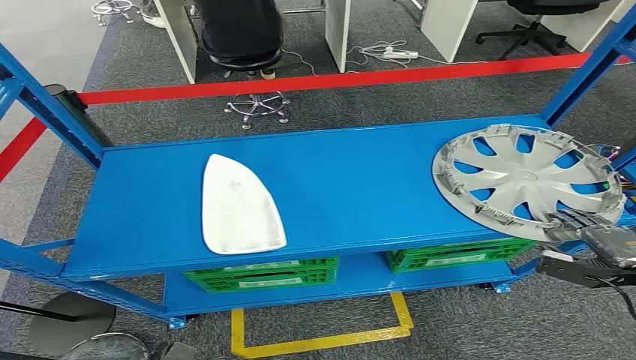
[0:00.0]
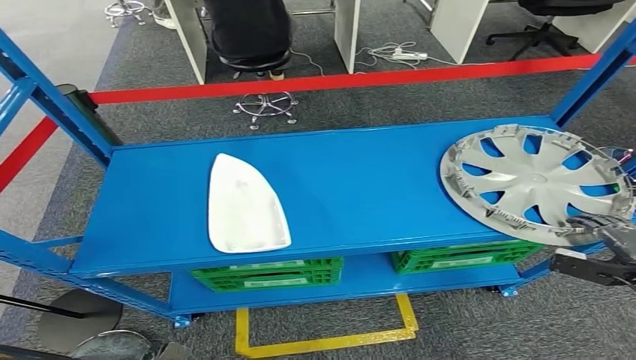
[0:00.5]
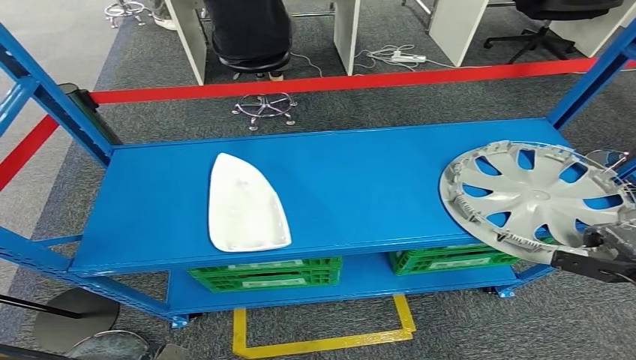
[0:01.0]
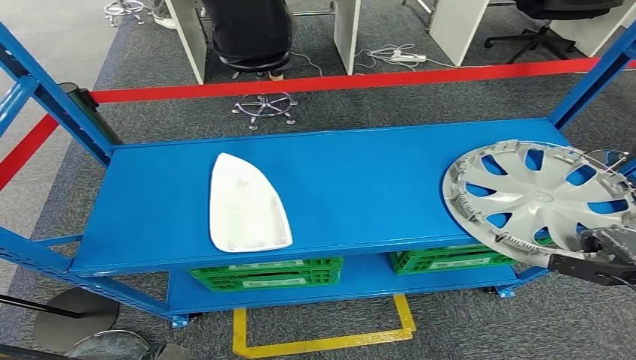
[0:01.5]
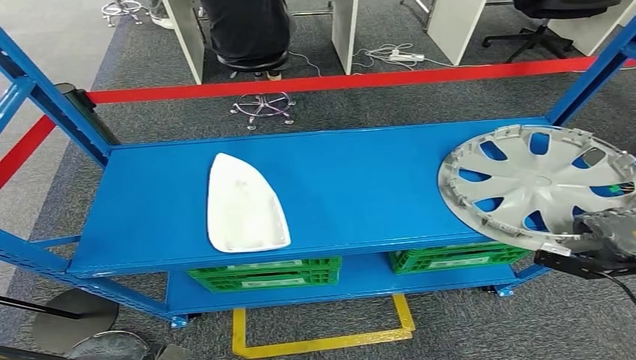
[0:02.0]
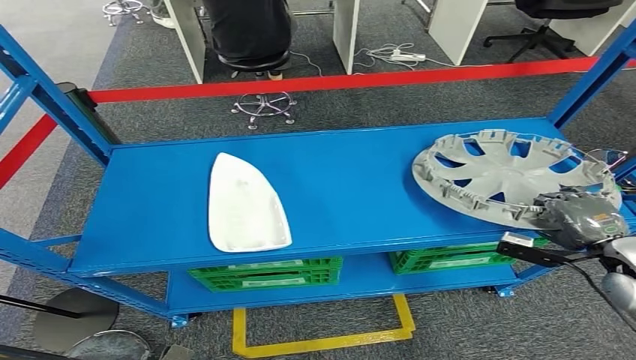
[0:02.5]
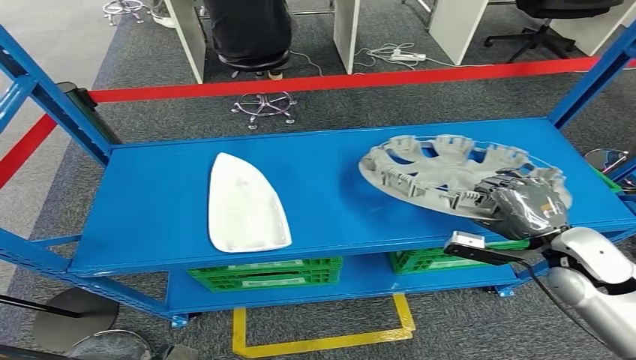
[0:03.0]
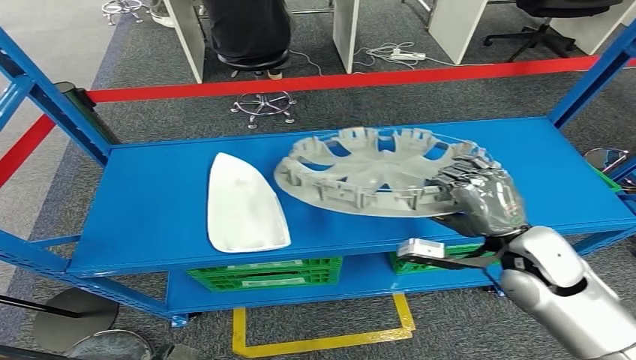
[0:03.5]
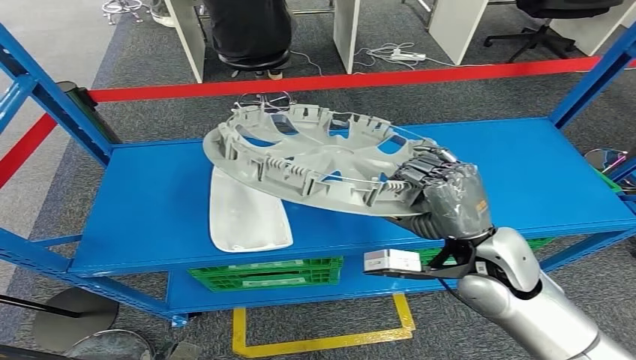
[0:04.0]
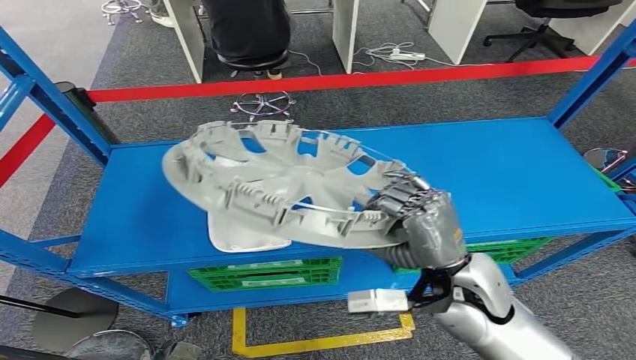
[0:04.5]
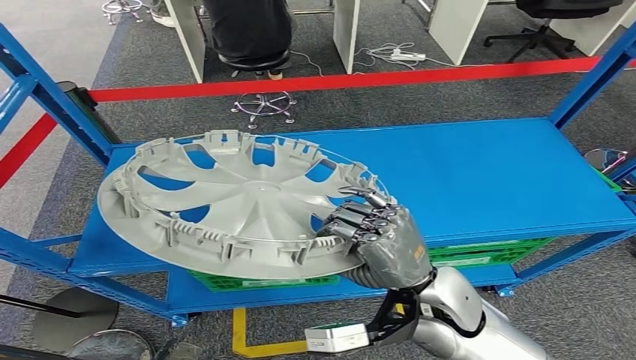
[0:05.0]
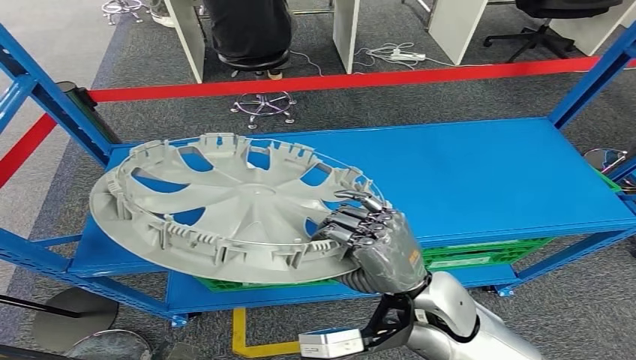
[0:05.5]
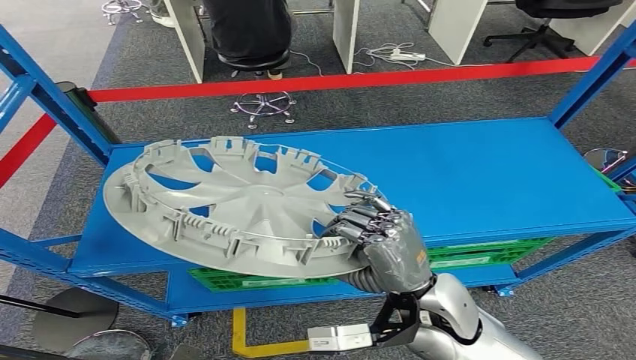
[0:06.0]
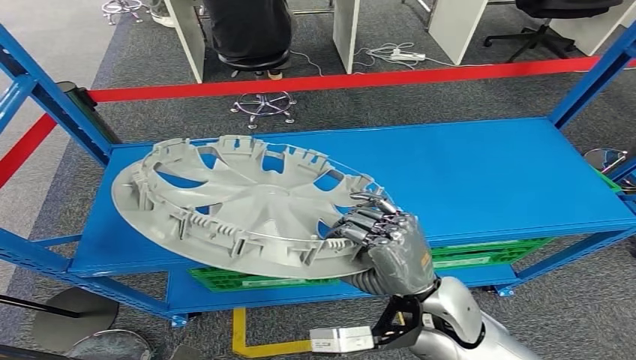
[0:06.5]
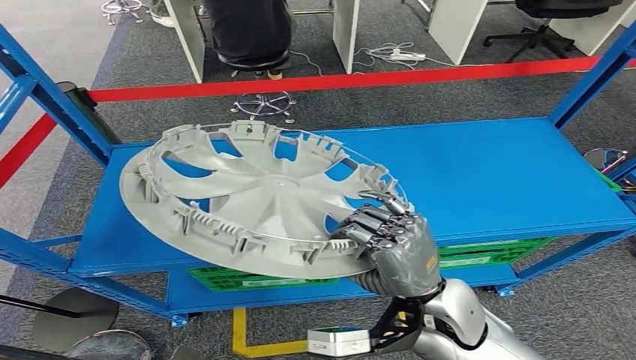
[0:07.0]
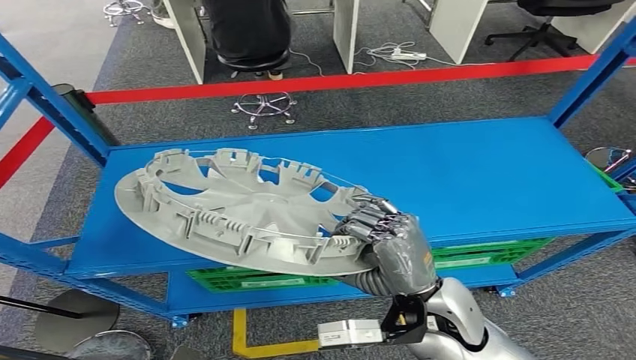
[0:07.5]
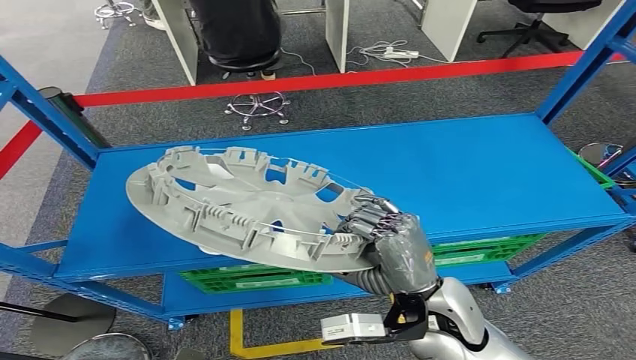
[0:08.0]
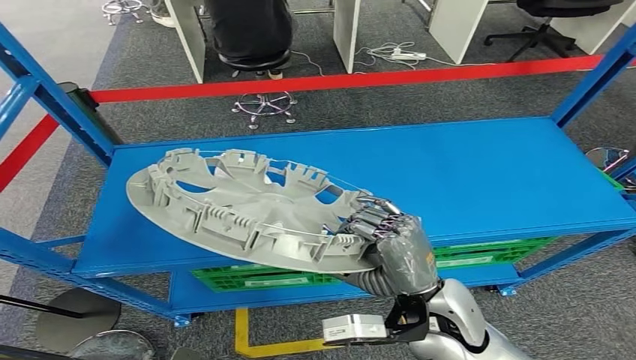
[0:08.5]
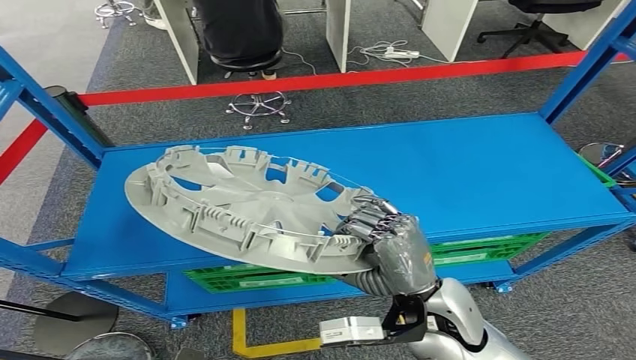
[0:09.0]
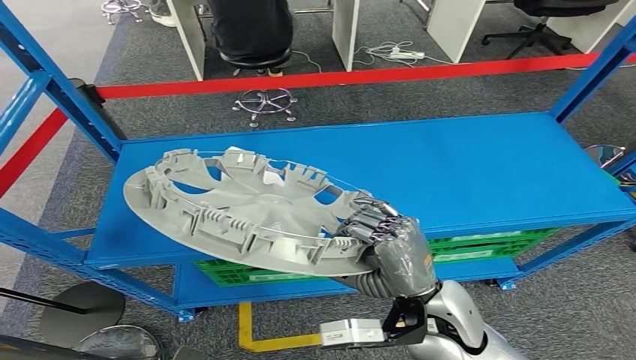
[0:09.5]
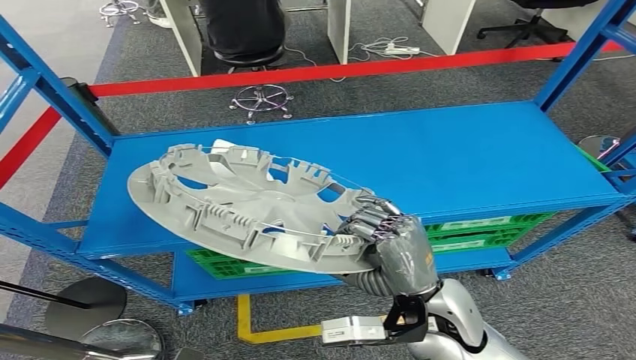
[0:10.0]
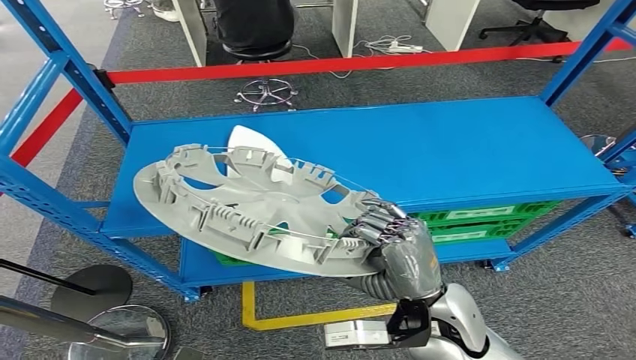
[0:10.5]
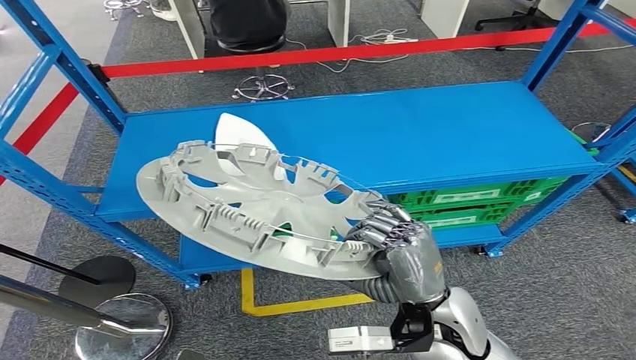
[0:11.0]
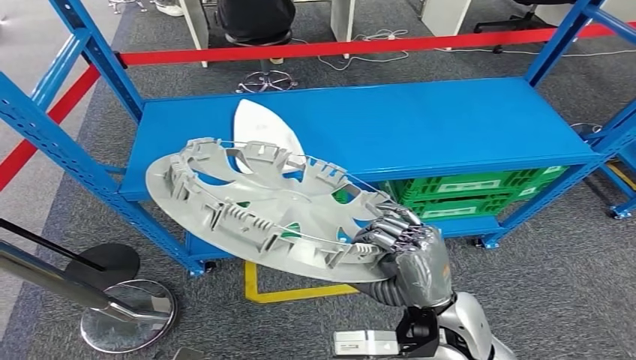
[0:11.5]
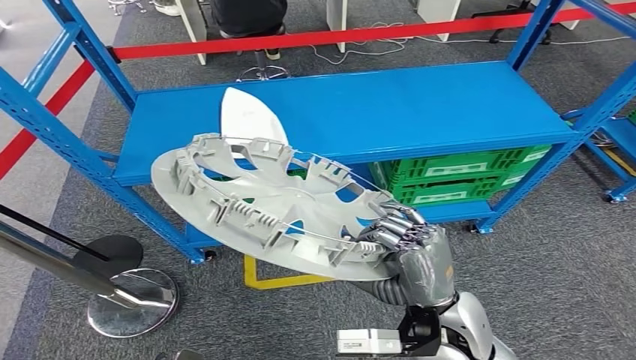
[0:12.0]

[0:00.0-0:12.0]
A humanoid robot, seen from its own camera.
Step, 0:00.0 to 0:06.0: Pick up the small component from the shelf.

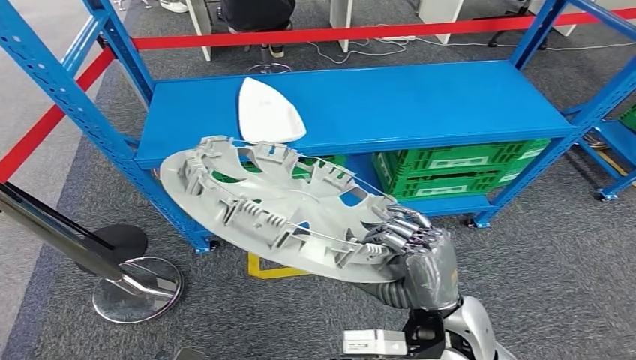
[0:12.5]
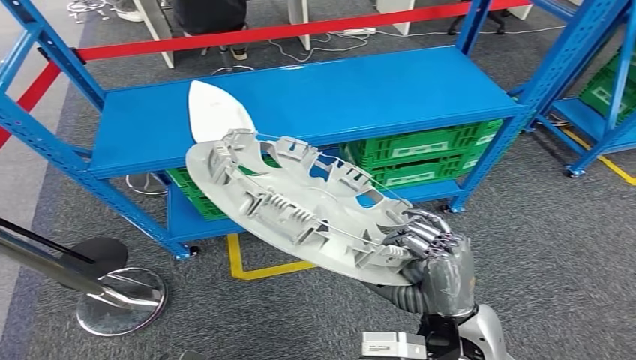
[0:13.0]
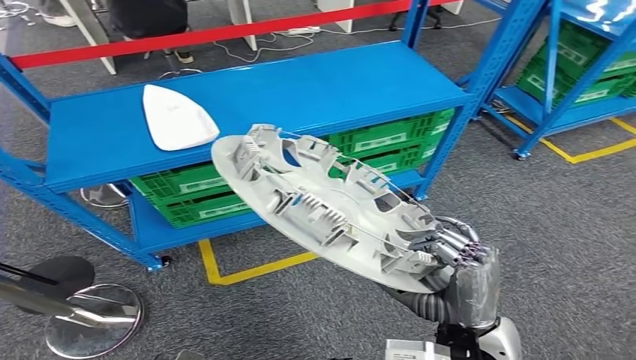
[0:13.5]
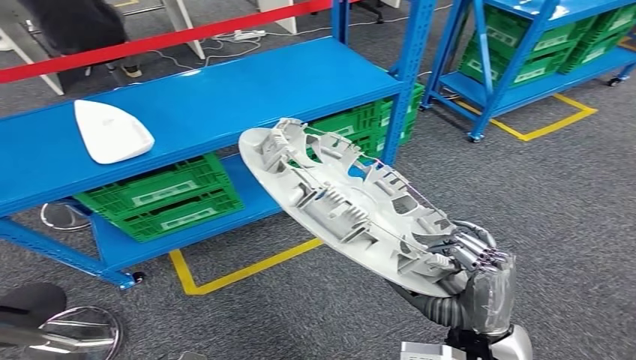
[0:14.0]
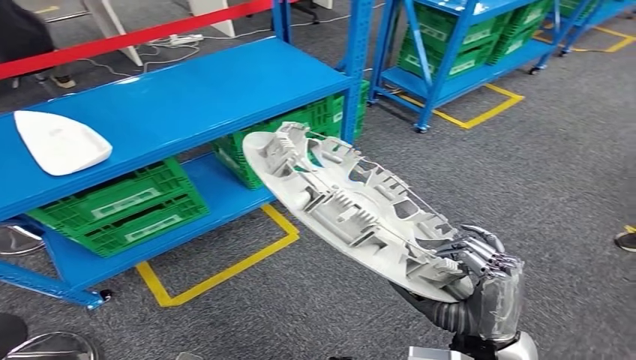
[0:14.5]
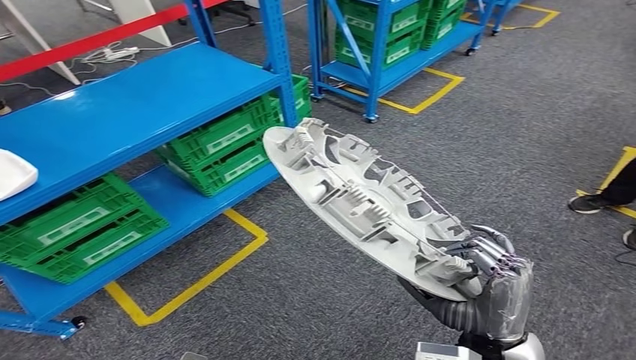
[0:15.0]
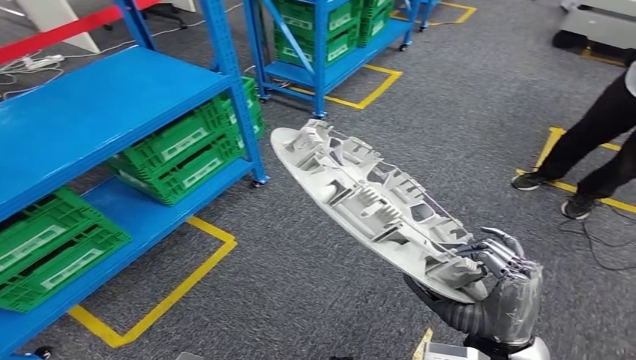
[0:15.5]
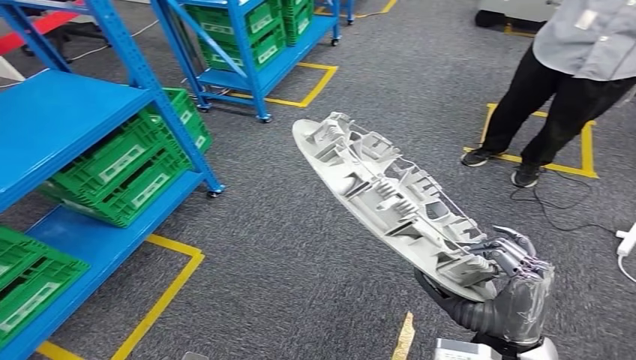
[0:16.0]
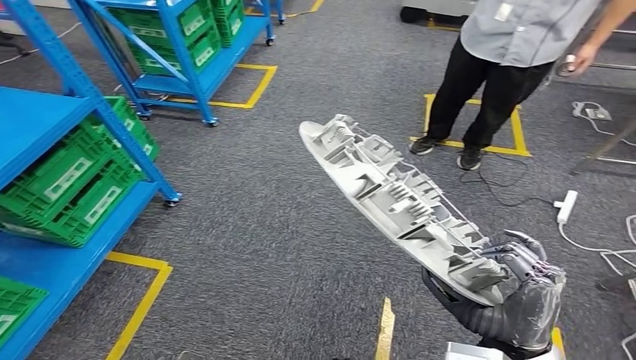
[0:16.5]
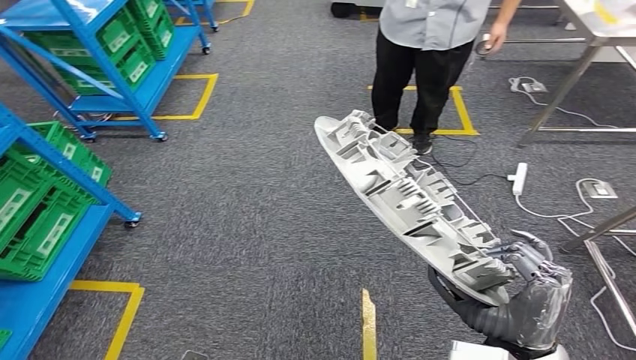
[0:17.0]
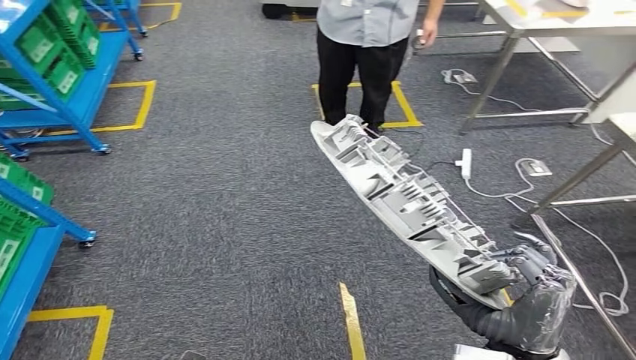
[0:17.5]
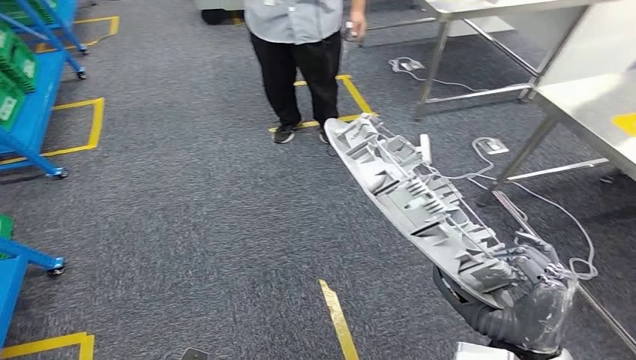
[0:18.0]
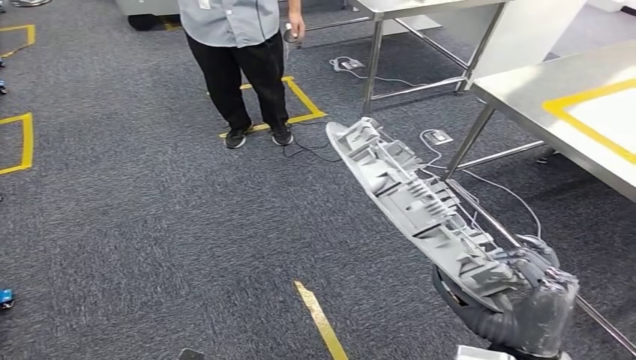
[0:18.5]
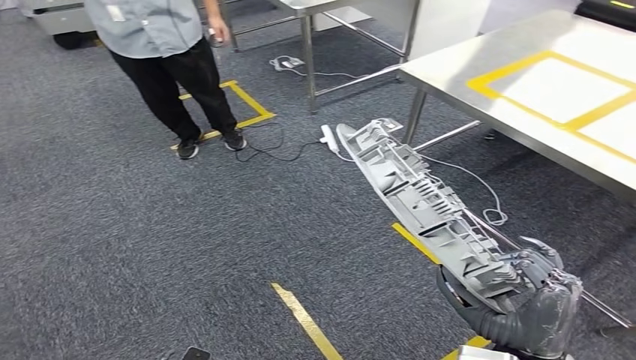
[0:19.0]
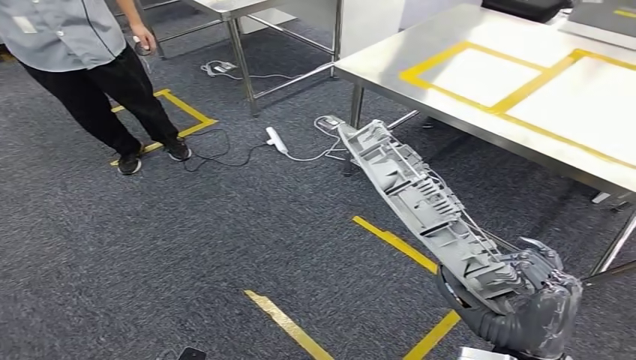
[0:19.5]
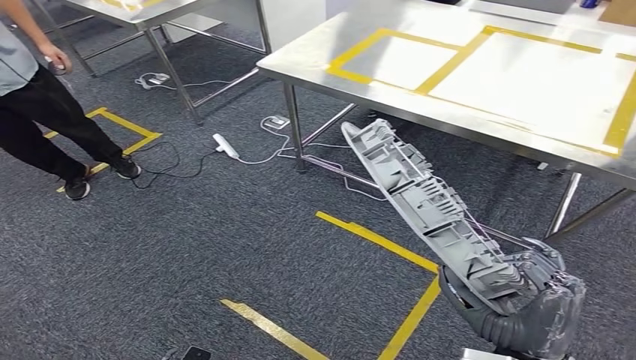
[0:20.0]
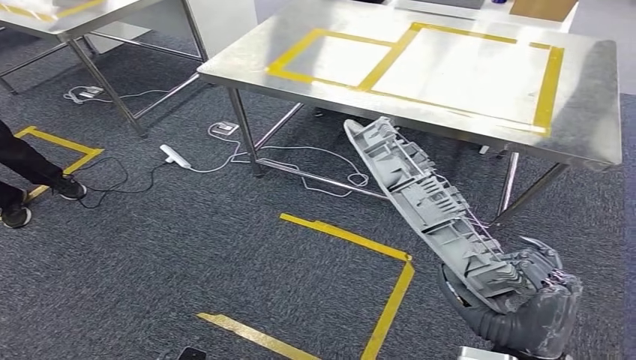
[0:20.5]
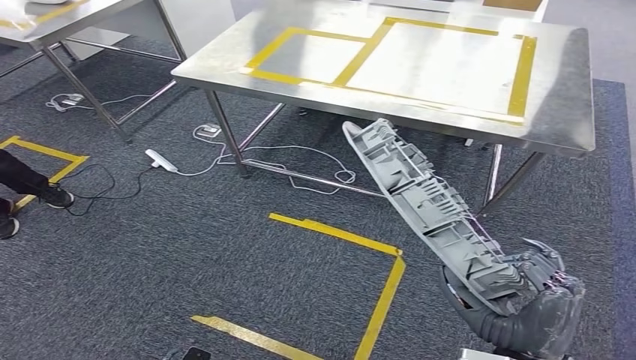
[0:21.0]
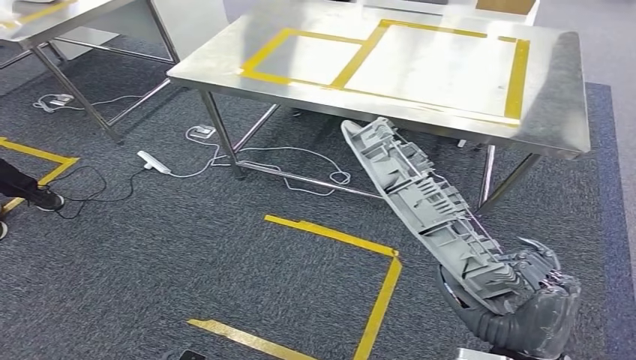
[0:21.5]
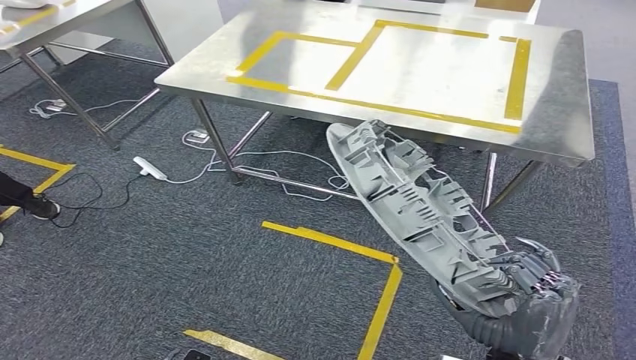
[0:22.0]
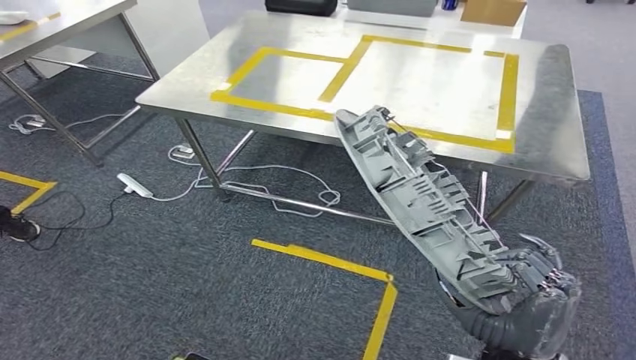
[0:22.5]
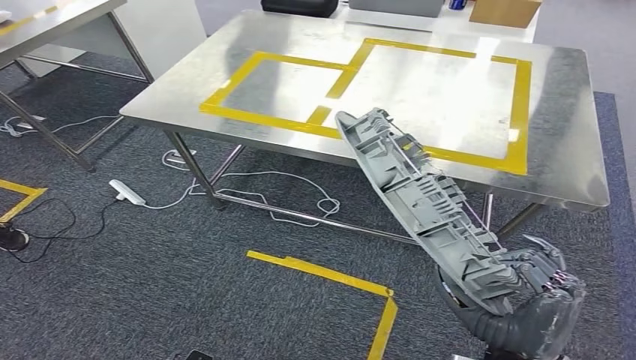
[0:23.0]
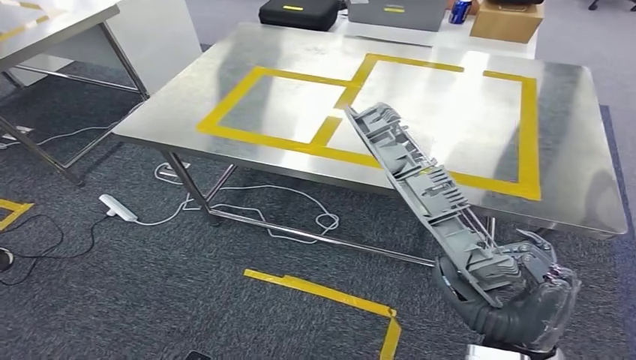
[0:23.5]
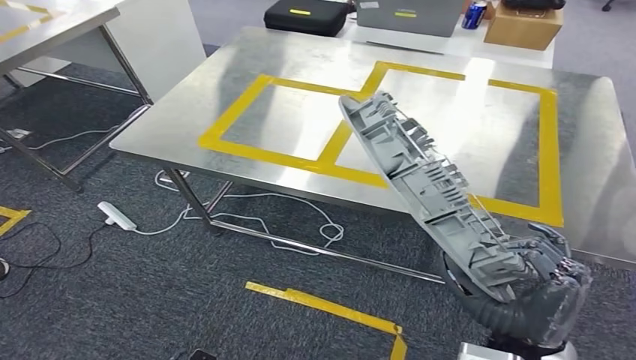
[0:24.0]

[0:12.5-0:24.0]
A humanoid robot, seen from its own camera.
Step, 0:12.5 to 0:23.5: Move the small component to the workbench.
